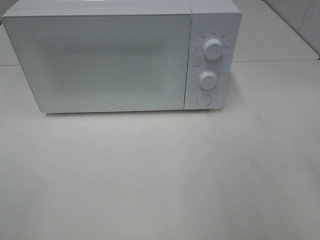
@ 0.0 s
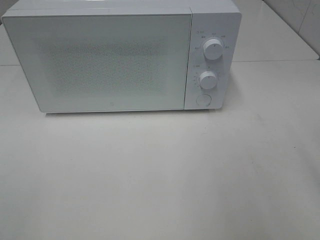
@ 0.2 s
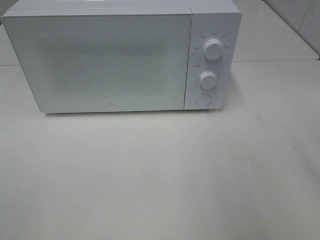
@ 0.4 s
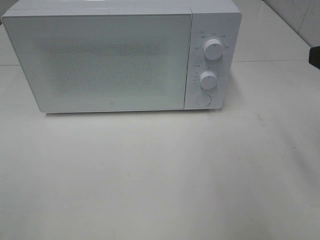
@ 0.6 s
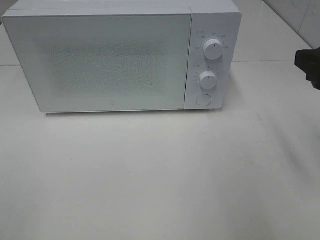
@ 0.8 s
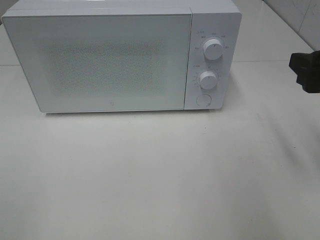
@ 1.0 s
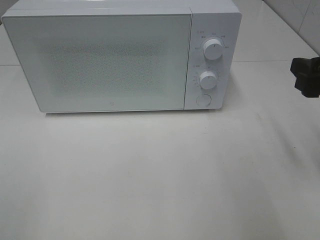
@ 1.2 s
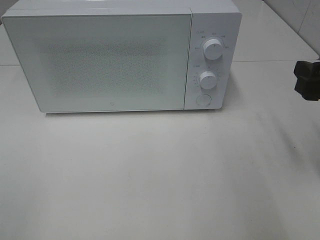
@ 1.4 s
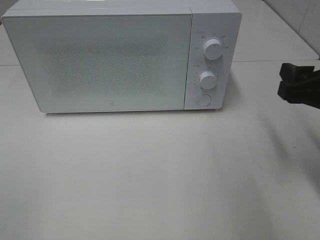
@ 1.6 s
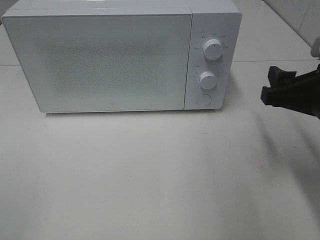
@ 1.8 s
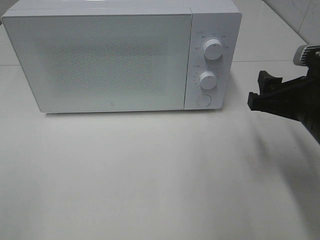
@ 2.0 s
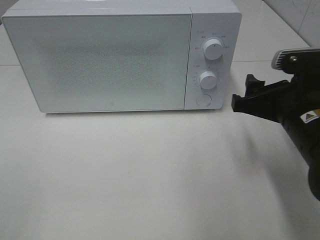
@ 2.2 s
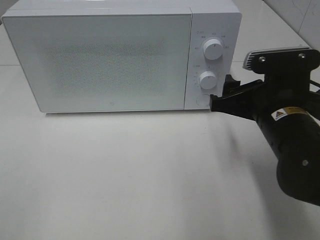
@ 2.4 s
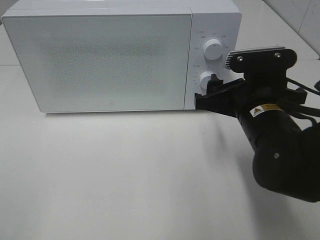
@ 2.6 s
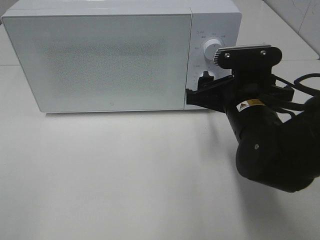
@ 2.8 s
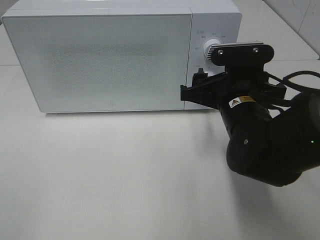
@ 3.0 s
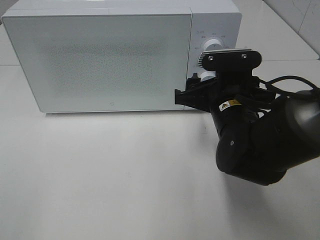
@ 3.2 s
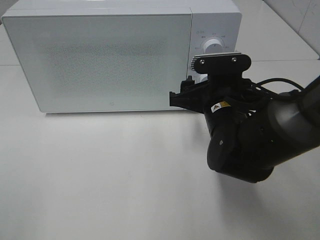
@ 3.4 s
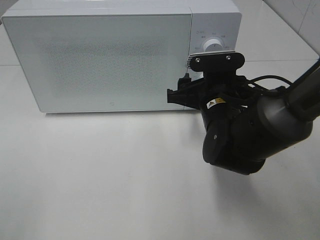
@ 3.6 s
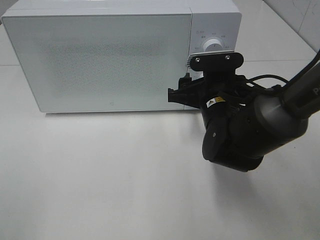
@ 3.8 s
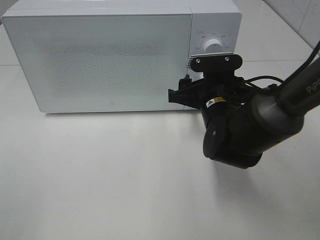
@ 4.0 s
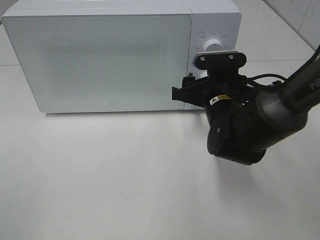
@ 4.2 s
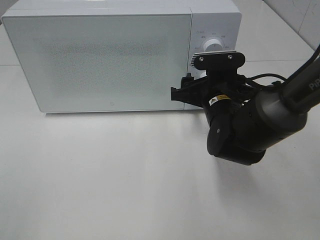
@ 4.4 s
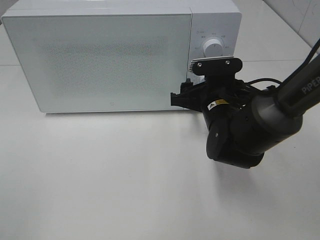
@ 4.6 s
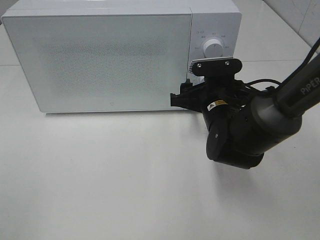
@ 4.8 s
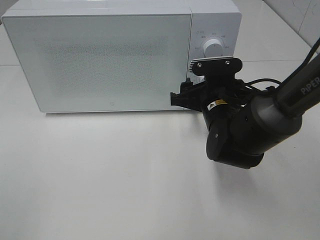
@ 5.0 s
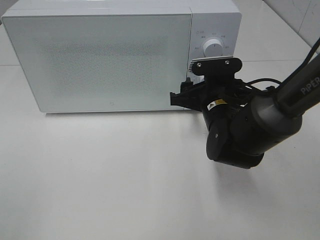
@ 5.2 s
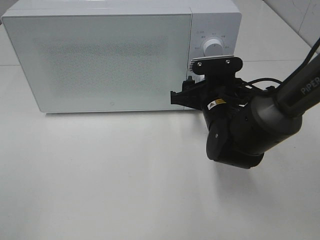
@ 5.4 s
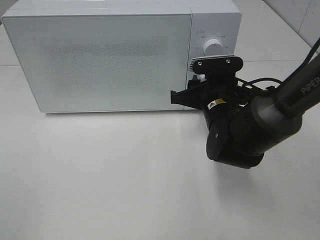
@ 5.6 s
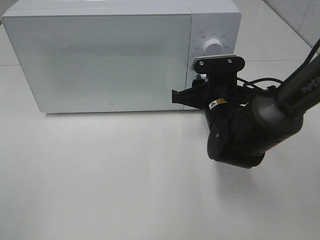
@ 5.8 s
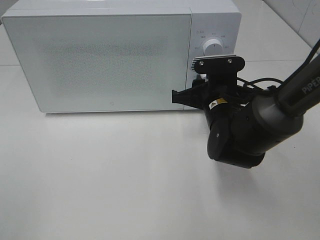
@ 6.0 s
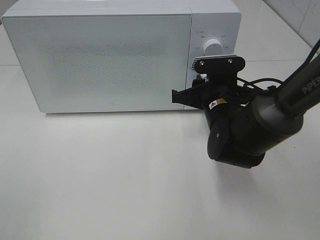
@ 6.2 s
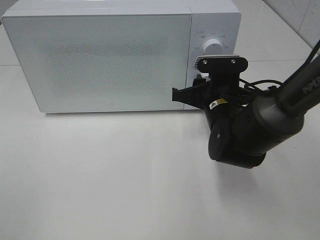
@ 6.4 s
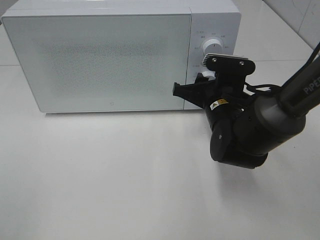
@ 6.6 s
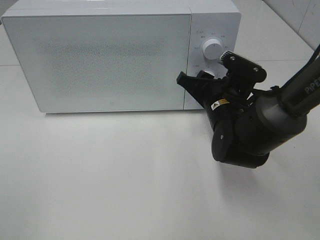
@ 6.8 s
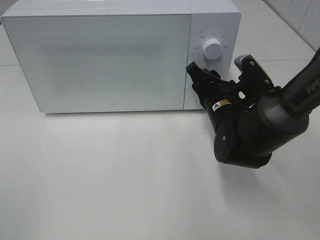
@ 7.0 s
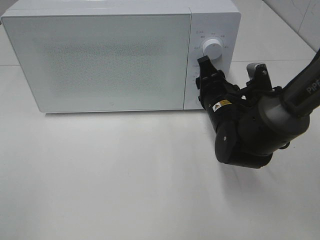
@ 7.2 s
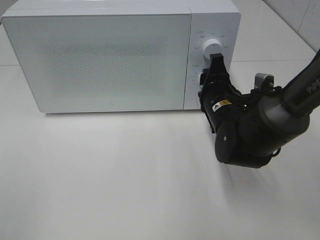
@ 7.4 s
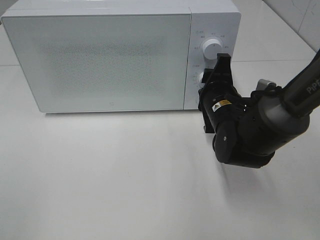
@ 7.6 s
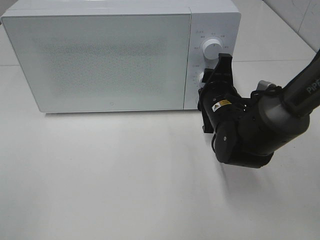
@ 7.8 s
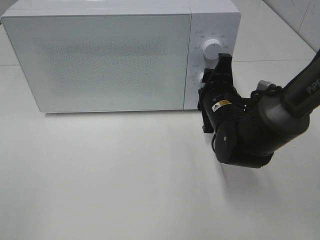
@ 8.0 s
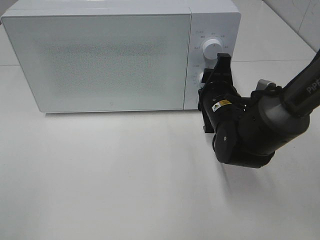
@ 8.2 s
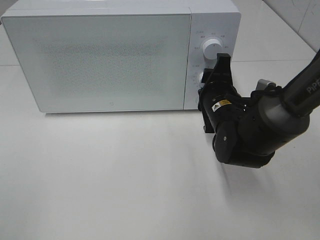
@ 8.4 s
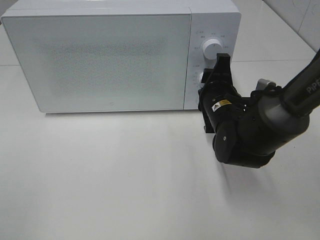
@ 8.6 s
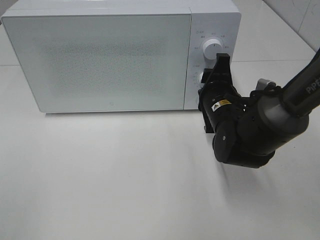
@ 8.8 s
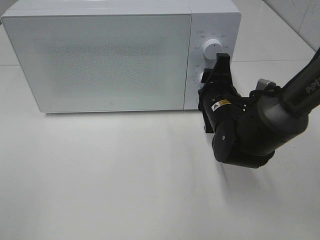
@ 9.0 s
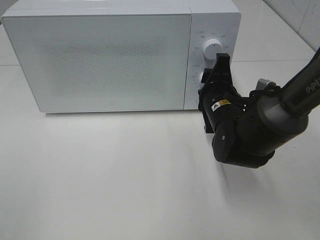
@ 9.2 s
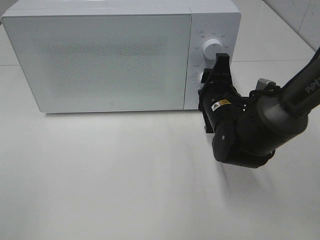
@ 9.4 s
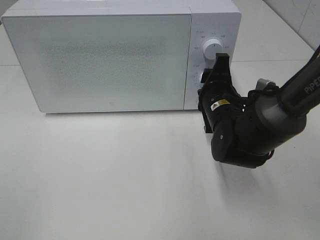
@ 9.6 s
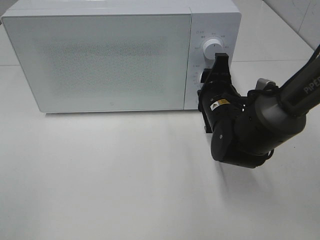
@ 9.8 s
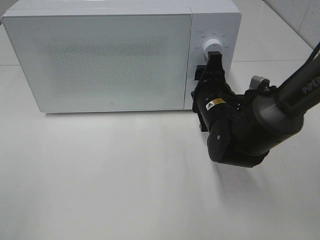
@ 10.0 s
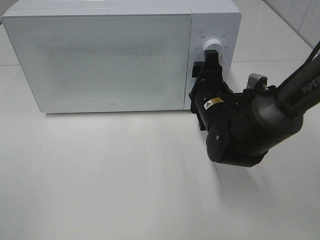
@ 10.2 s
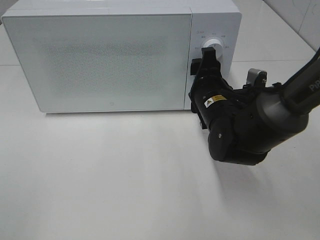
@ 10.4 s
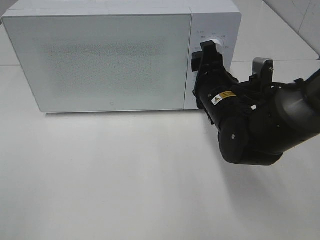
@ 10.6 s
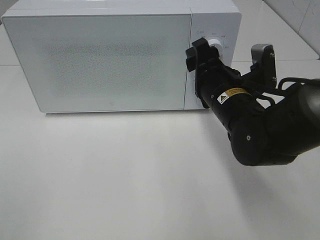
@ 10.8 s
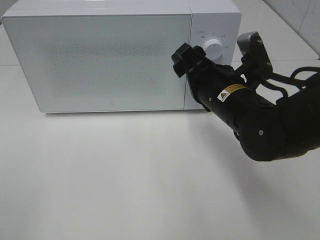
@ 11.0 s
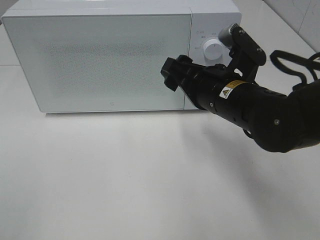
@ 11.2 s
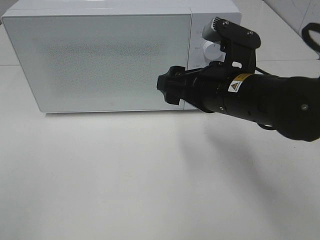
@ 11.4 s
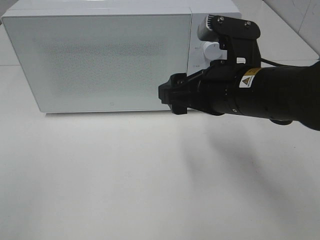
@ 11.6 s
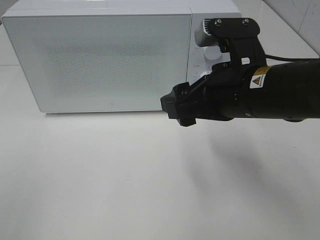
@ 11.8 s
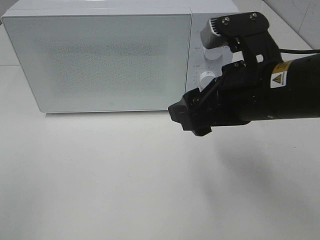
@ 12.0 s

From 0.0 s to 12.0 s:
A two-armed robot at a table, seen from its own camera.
Task of the whole recording: Heat the burger.
Step, from 0.0 s to 9.8 s: Right hand: twist timer button.
From 0.0 s to 1.6 s: The right gripper heads downward and forward, covering some 15 cm.
From 1.6 s to 3.0 s: The right gripper shifts about 15 cm to the left and forward.
From 3.0 s to 4.4 s: The right gripper heads forward, covering about 5 cm.
From 4.4 s to 6.0 s: The right gripper closes.
From 7.6 s to 9.0 s: Neither gripper changes place.
From 9.0 s to 10.4 s: There are only small adjustments of the grippers.
From 10.4 s to 12.0 s: The right gripper goes some 15 cm upward and backward.

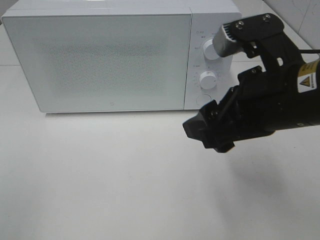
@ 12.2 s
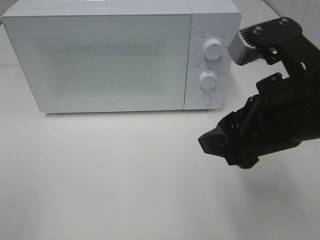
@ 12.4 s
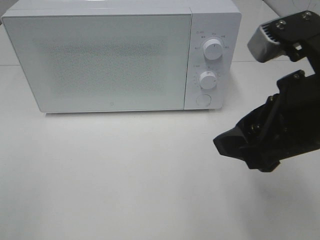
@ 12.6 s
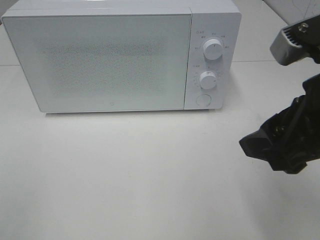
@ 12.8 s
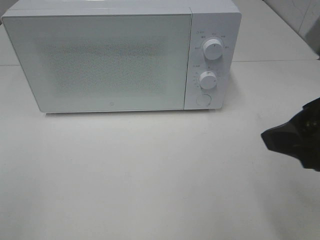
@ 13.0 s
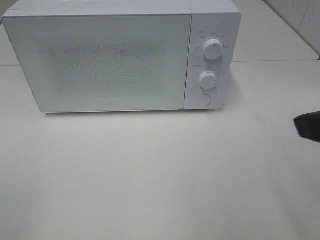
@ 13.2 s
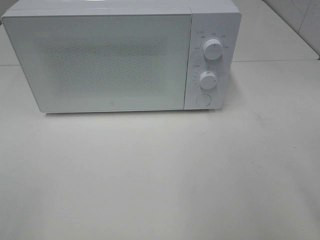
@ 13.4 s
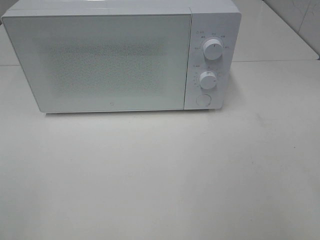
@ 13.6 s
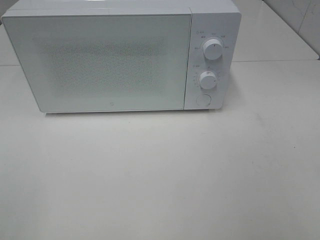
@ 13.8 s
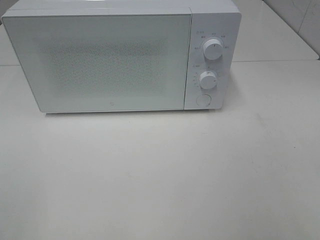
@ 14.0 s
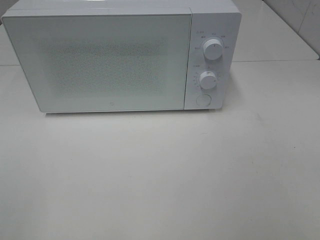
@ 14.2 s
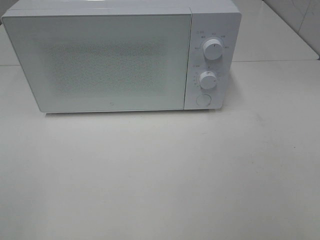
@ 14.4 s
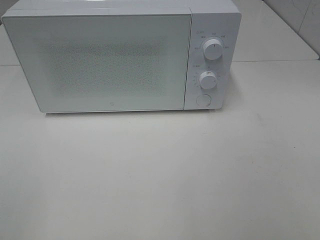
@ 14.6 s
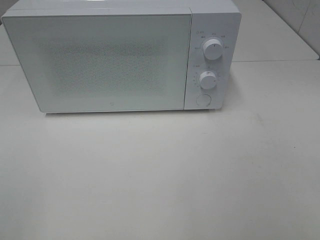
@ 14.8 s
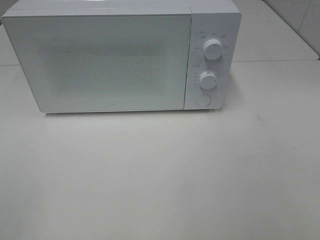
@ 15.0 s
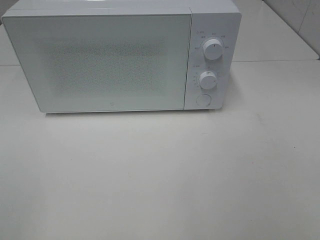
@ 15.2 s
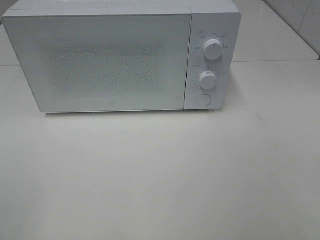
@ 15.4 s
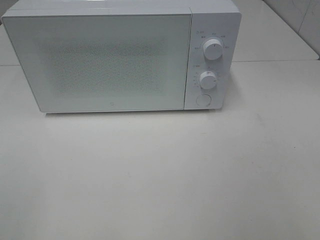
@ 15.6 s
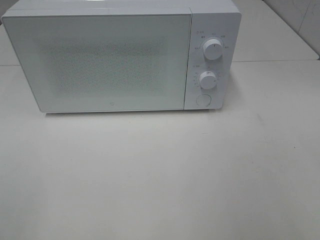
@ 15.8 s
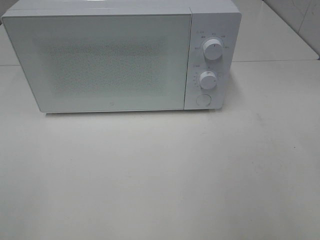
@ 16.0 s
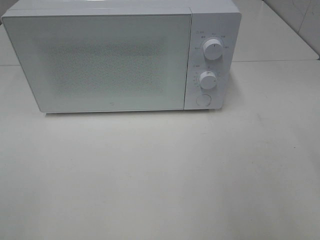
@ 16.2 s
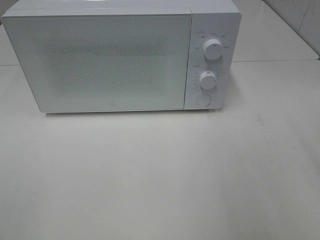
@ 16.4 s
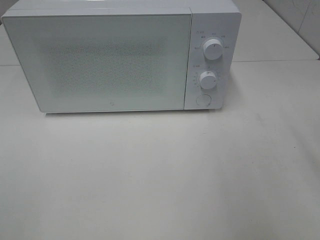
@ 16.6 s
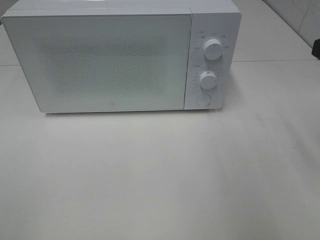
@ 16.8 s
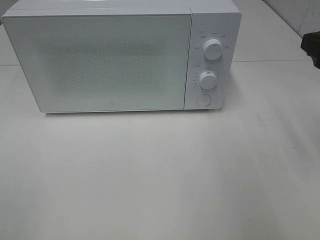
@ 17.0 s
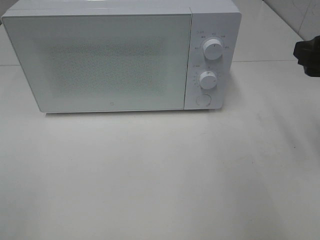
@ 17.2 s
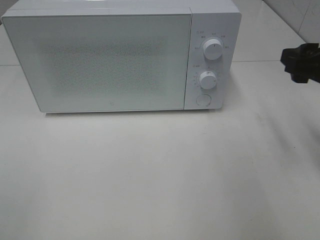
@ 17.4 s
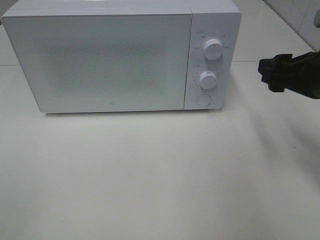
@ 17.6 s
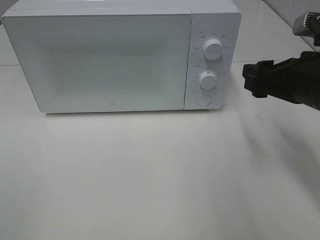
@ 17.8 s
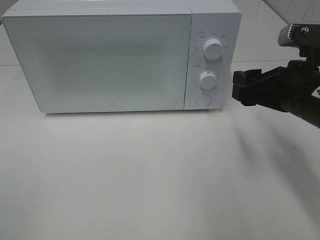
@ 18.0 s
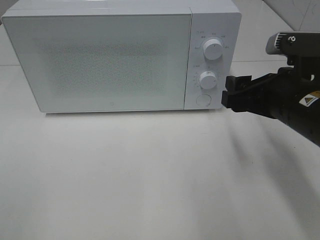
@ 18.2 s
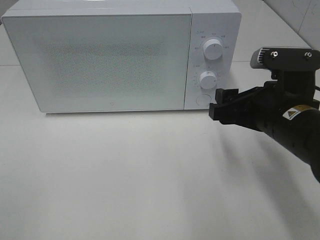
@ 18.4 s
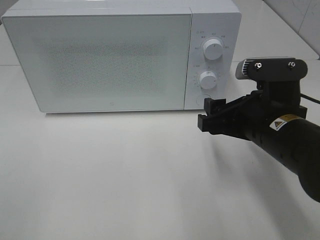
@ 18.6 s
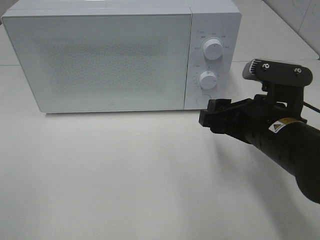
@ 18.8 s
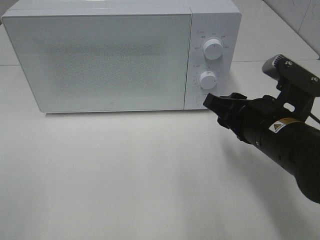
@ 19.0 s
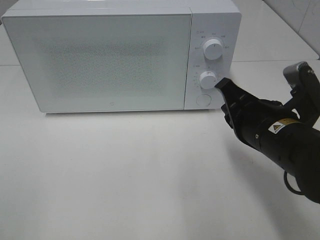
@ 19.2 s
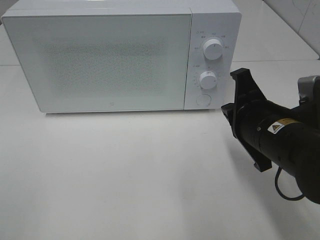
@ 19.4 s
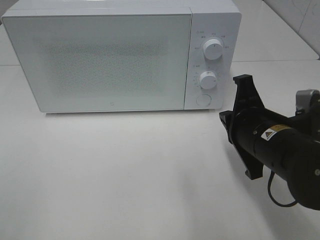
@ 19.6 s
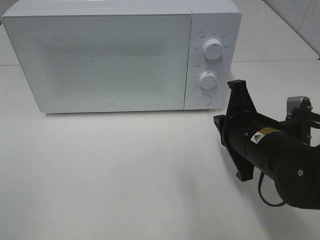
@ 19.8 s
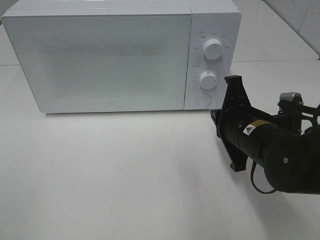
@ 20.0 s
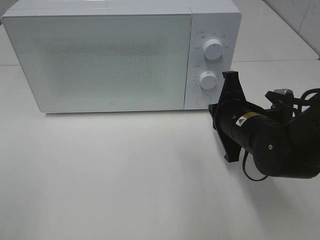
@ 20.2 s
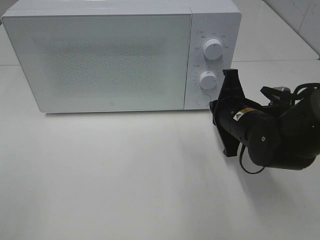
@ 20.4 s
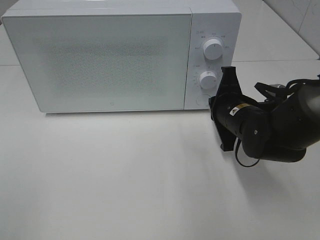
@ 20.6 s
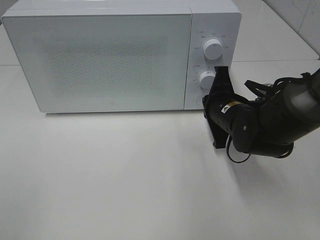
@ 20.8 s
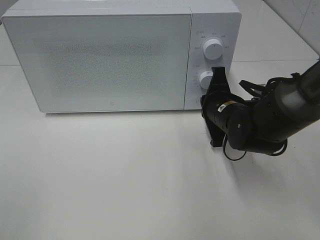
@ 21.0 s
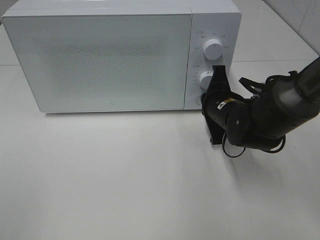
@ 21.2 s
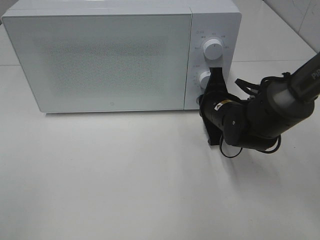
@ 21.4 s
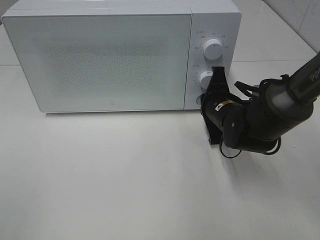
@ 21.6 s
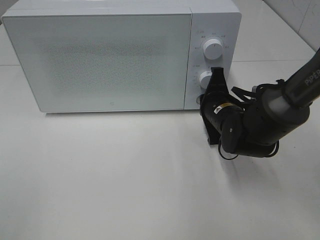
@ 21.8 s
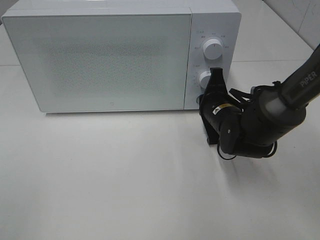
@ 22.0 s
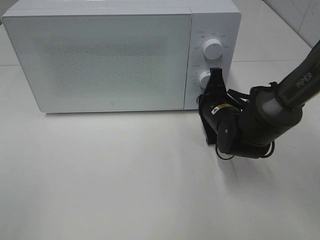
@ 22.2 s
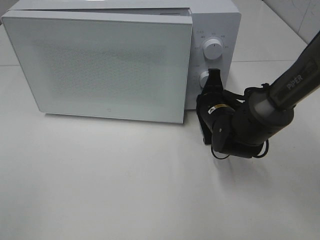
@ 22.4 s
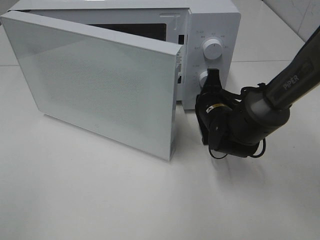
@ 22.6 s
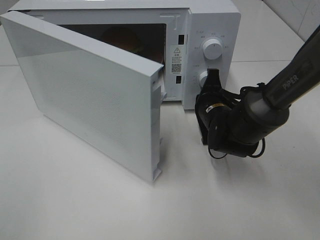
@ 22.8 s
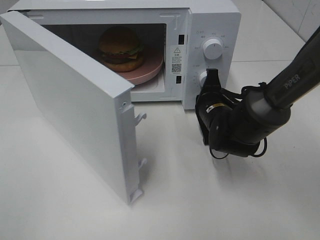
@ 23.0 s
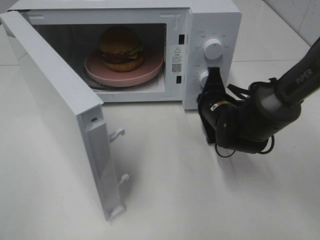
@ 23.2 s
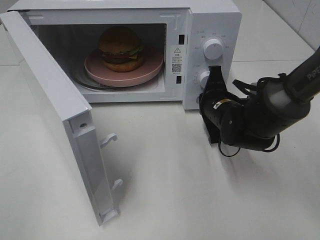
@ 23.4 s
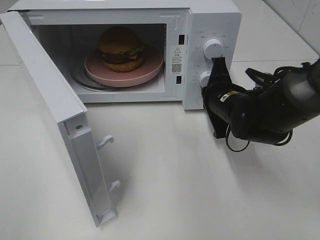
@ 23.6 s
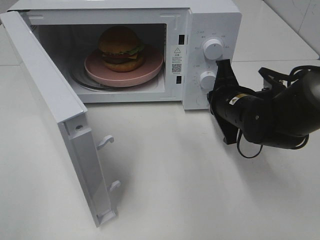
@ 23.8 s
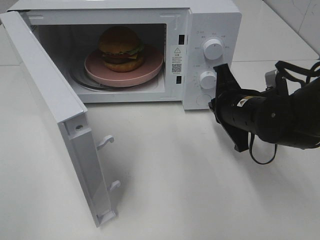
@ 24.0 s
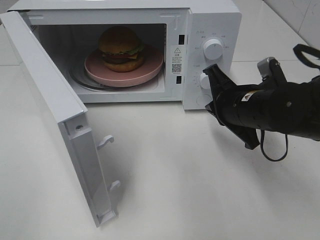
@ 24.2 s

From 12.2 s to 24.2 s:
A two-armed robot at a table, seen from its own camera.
Task of the whole recording: Heat the burger.
Step, from 12.2 s to 23.6 s: Right hand: press the switch.
From 12.2 s to 13.8 s: The right gripper heads to the right and backward, covering about 20 cm.
From 16.6 s to 18.2 s: The right gripper is displaced downward, to the left and forward by some 15 cm.
From 18.2 s to 19.8 s: The right gripper travels downward by roughly 5 cm, and closes its fingers.
From 19.8 s to 21.2 s: The right gripper goes about 10 cm forward.
From 21.2 s to 22.6 s: There are only small adjustments of the grippers.
From 22.6 s to 24.2 s: The right gripper moves upward and backward, some 10 cm.
